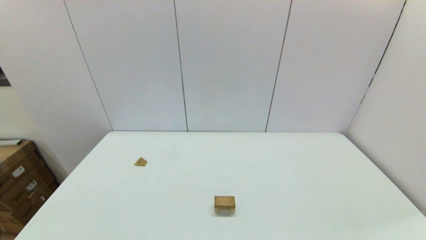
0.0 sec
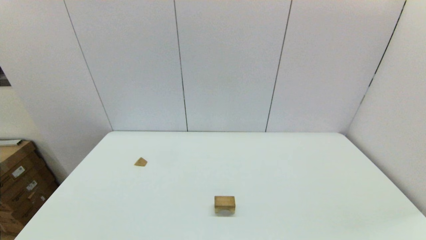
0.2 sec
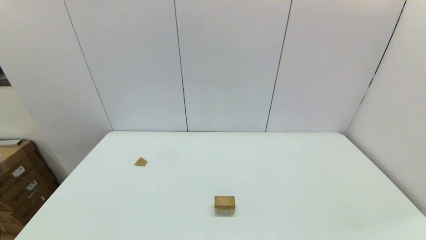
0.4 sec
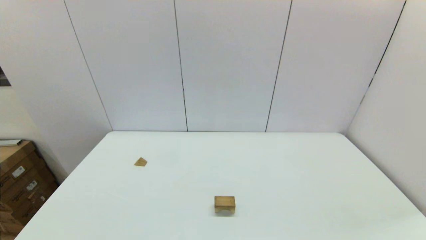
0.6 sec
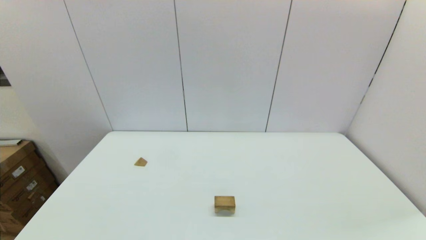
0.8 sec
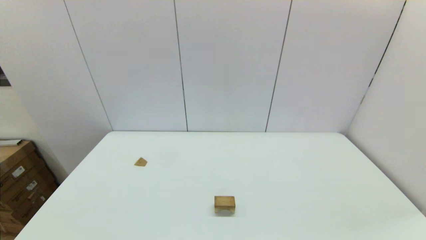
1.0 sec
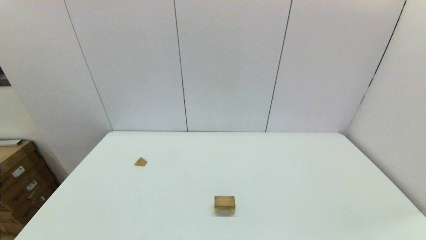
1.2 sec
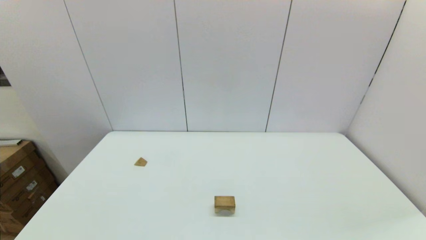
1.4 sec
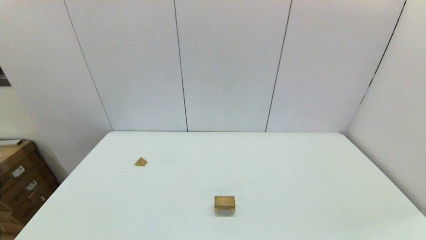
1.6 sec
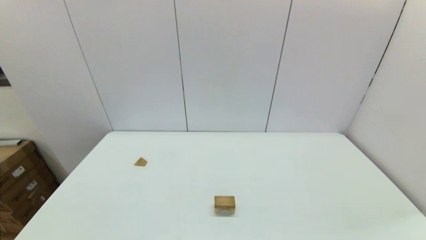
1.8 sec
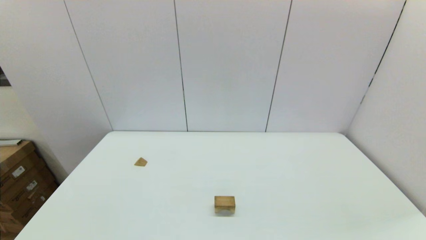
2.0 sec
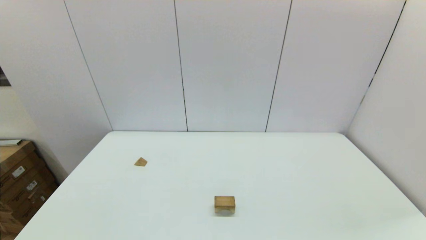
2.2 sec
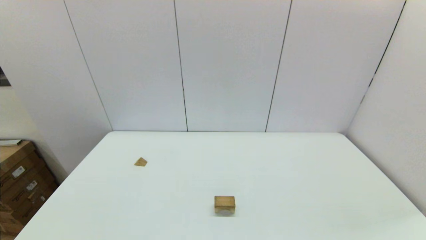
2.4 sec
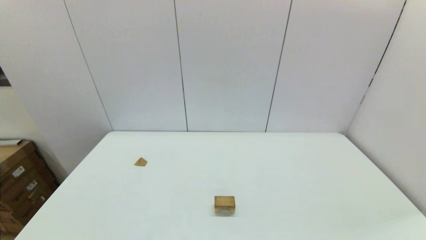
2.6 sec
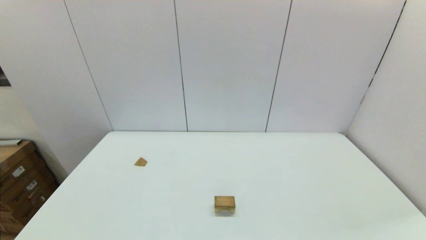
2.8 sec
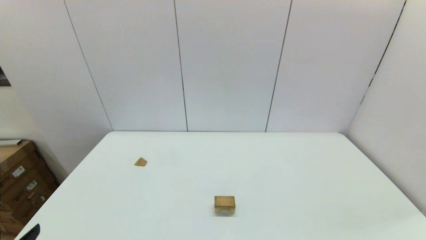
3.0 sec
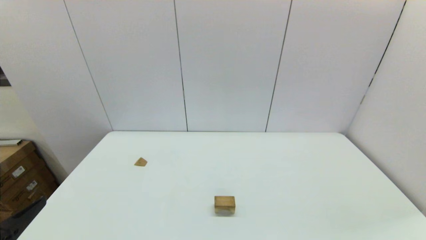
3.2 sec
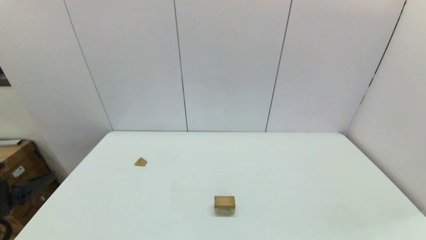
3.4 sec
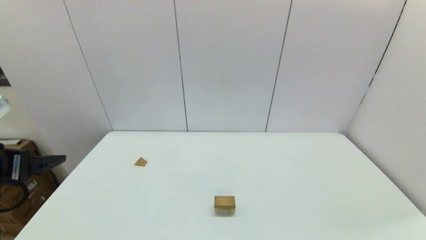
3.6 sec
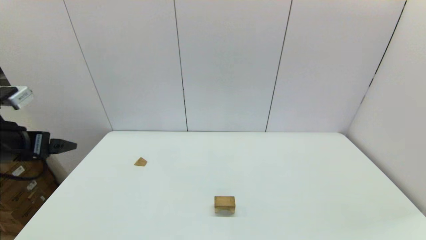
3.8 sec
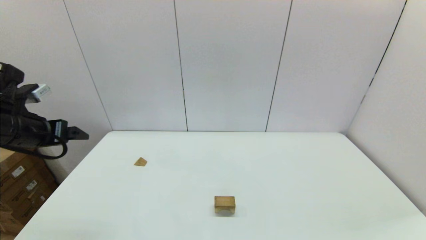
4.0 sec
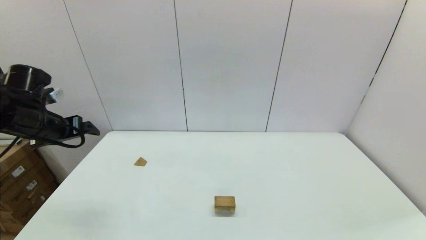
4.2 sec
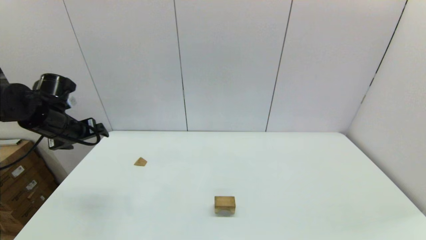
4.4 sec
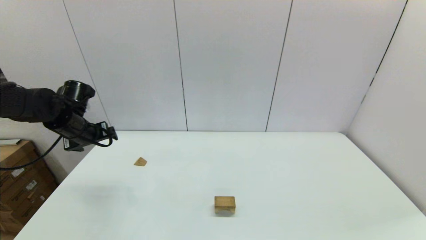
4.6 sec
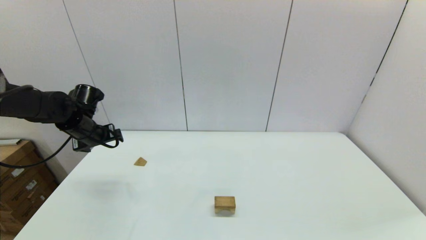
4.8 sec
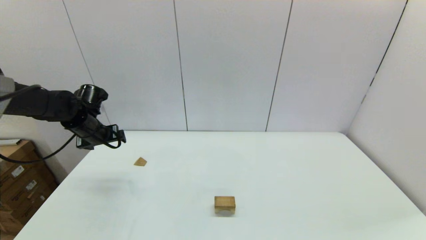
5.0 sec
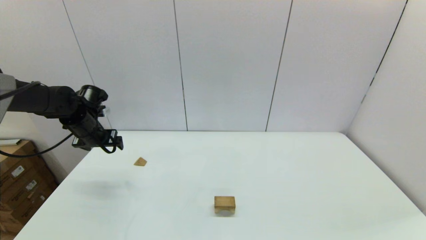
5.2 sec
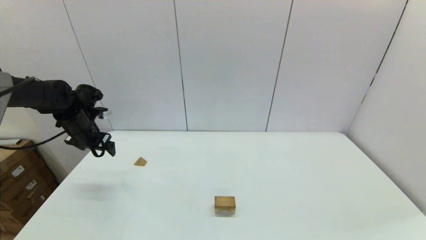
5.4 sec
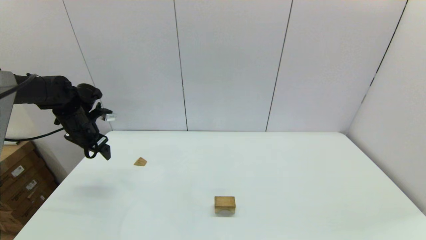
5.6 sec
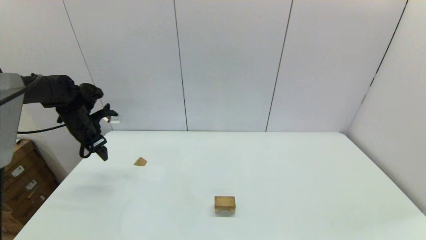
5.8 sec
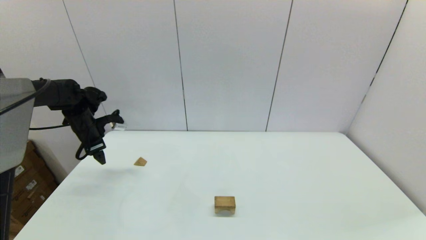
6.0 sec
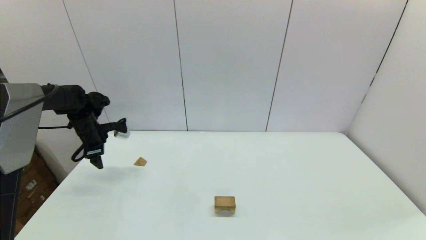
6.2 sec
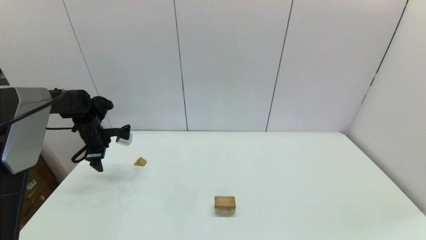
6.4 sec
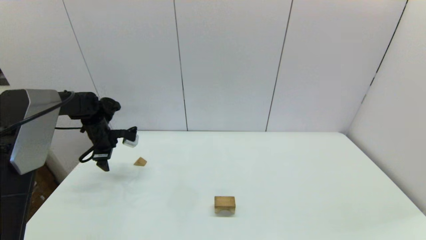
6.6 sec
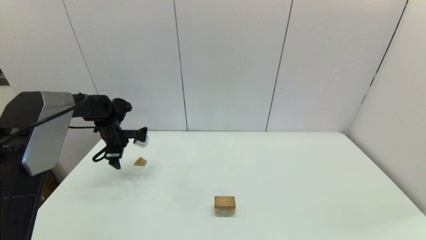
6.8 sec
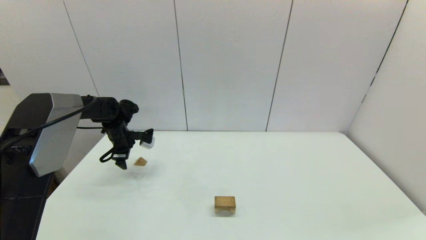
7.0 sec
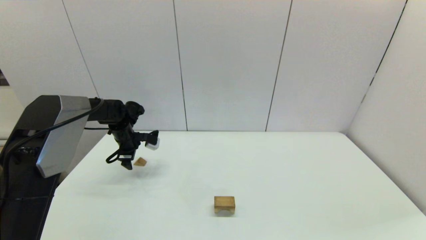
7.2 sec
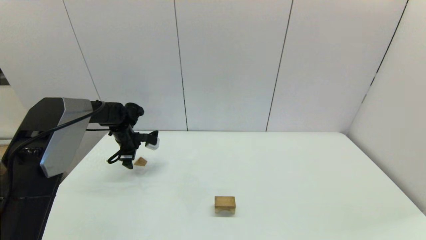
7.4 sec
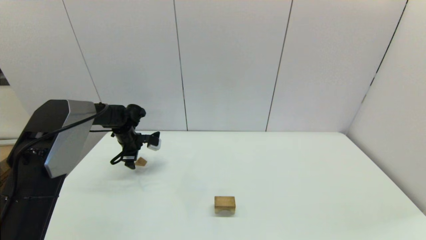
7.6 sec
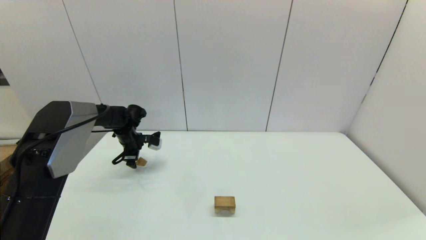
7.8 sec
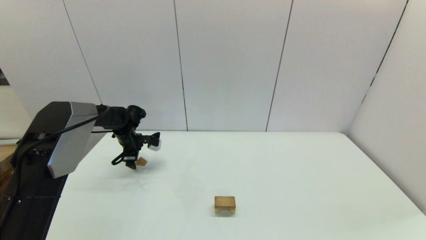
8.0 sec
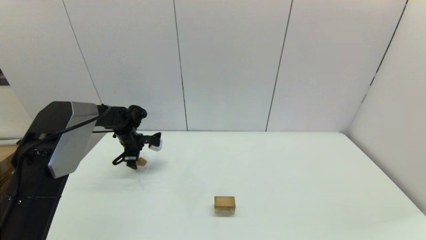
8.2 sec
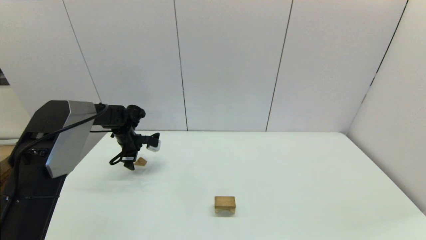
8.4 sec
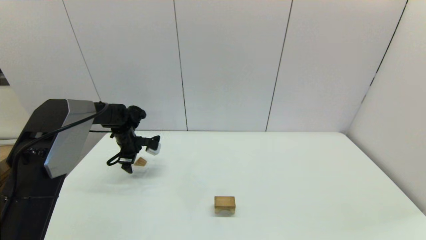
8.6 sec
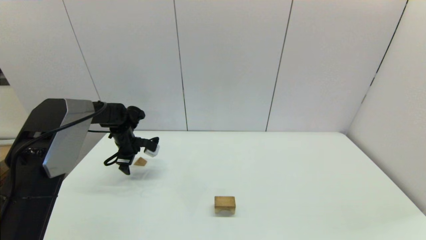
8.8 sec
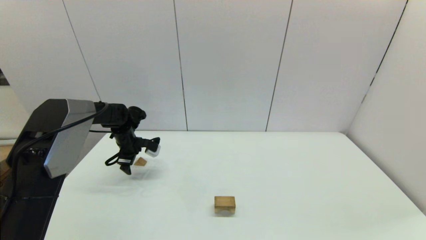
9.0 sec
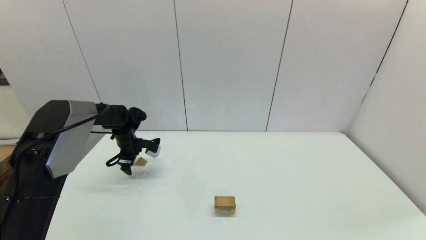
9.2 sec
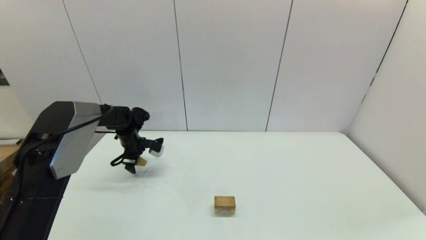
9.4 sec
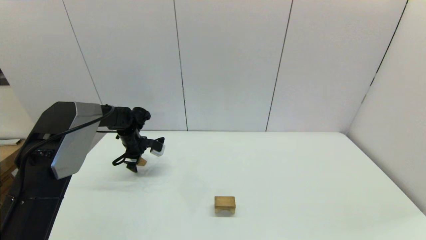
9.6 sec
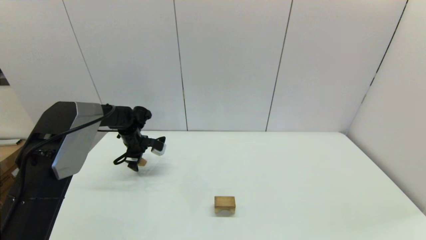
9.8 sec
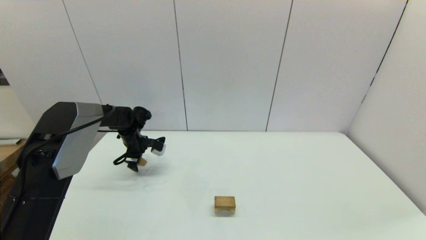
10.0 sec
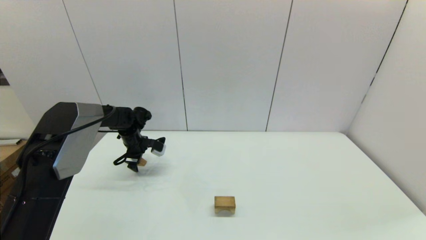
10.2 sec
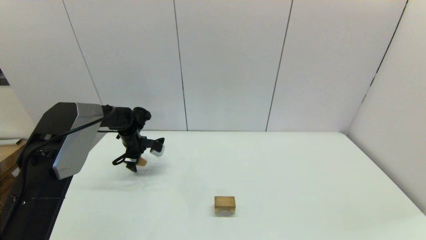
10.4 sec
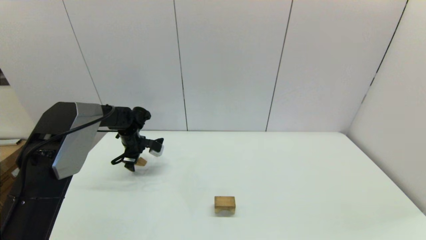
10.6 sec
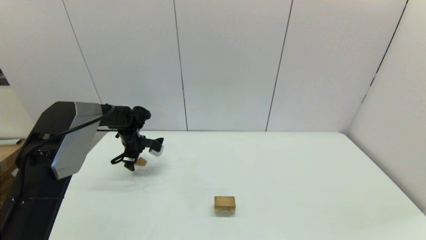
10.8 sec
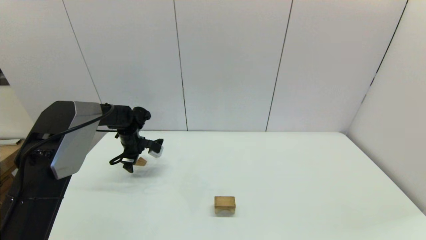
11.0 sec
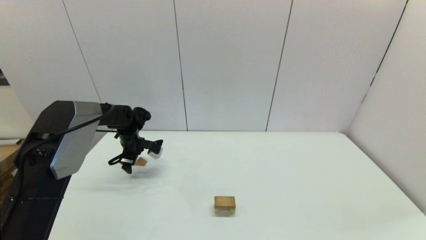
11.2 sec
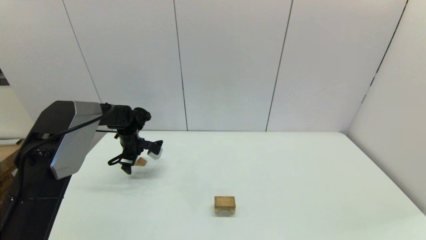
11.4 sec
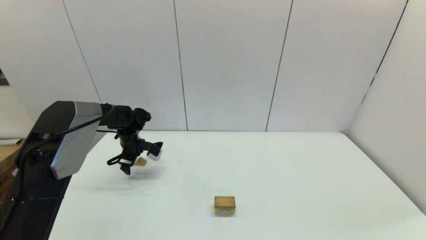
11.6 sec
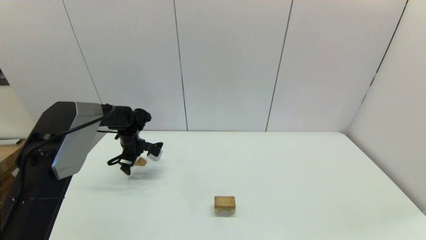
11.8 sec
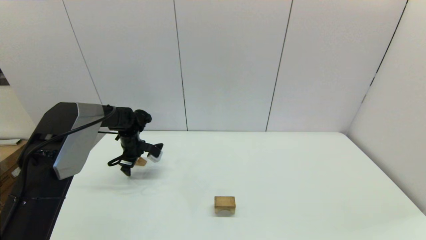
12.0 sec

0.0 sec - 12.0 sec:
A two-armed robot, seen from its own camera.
Task of the whole recording: place the arched building blocks in the center of the table, set up the rectangular building blocks, and then set up the triangular building blocks.
0.0 sec - 1.6 sec: Both grippers stay about where they are.
3.0 sec - 4.4 sec: The left gripper is displaced forward by about 30 cm.
4.4 sec - 6.0 sec: The left gripper shifts some 10 cm forward.
6.0 sec - 7.6 sec: The left gripper heads downward and to the right, covering roughly 10 cm.
7.6 sec - 12.0 sec: The grippers move only a little.

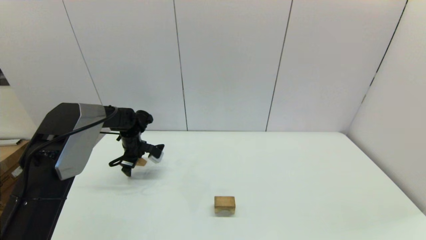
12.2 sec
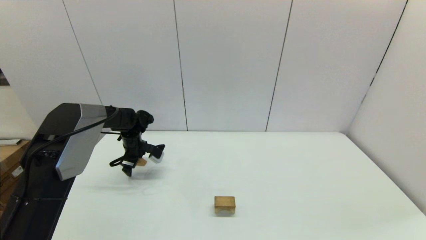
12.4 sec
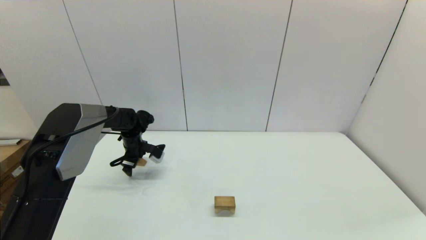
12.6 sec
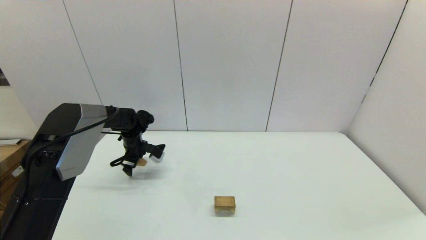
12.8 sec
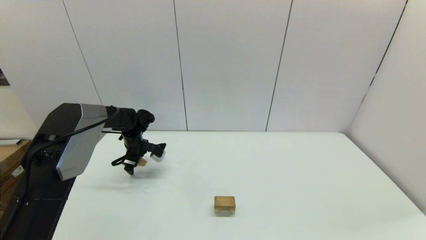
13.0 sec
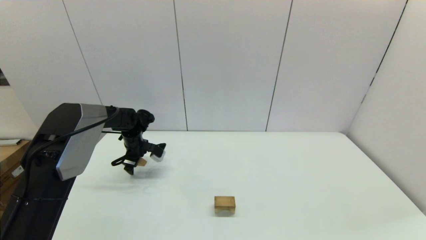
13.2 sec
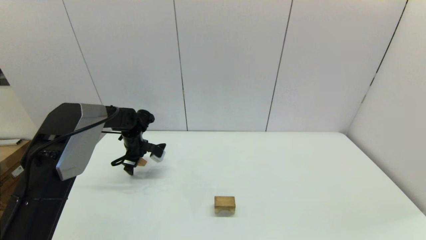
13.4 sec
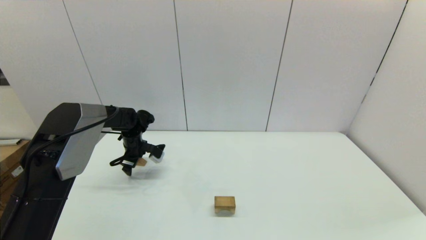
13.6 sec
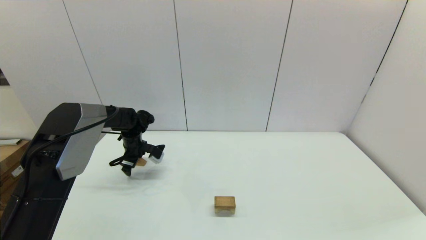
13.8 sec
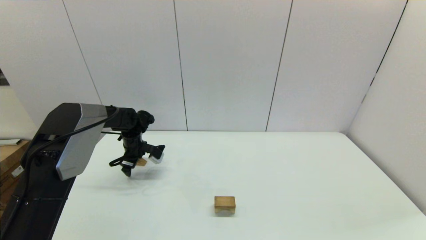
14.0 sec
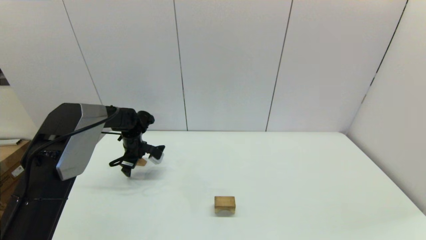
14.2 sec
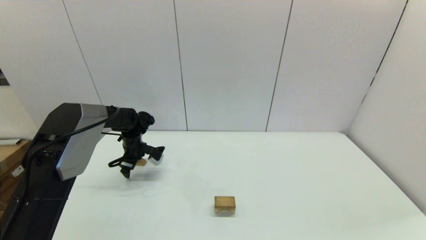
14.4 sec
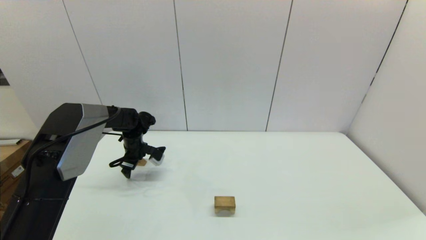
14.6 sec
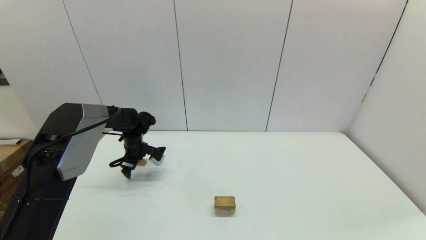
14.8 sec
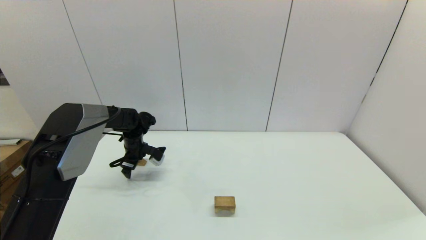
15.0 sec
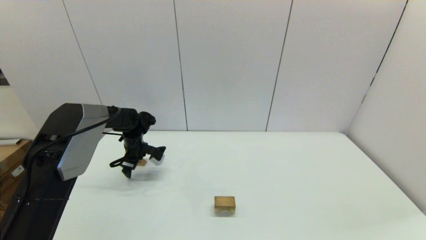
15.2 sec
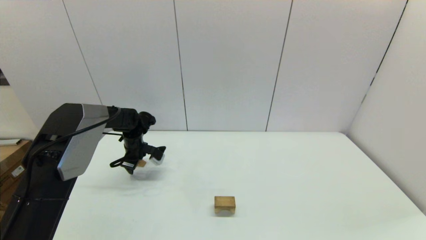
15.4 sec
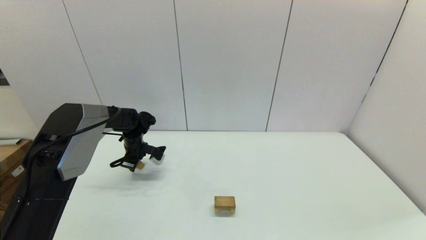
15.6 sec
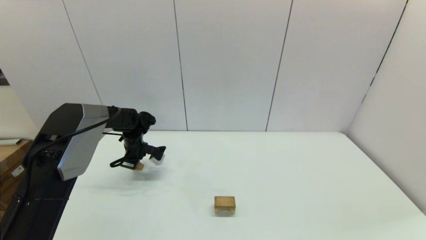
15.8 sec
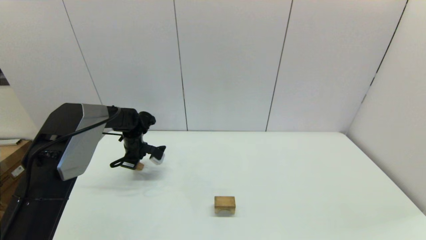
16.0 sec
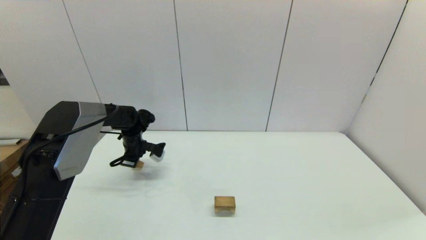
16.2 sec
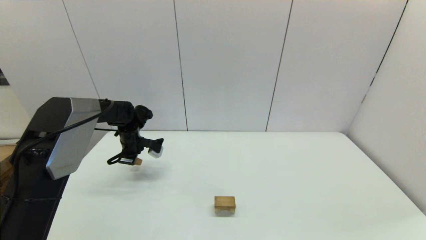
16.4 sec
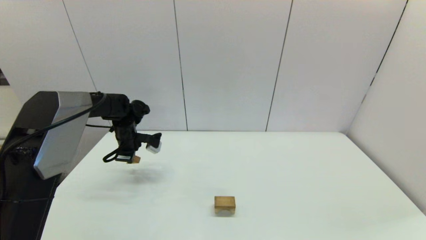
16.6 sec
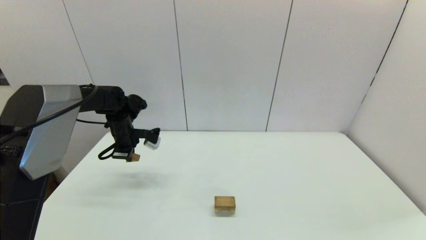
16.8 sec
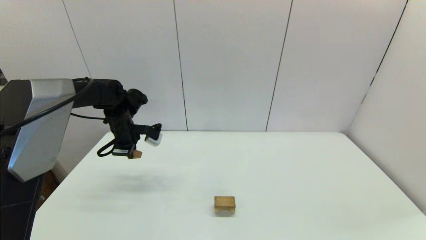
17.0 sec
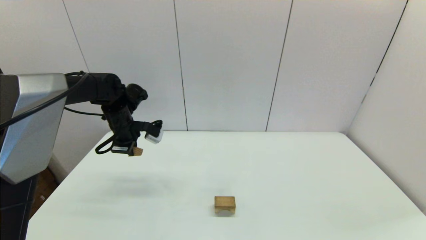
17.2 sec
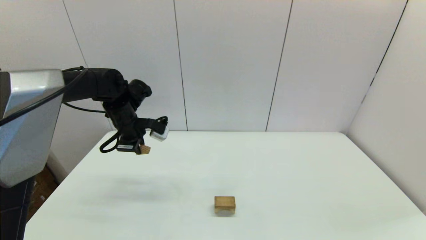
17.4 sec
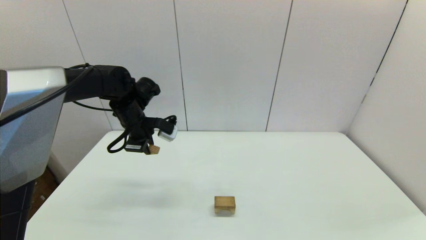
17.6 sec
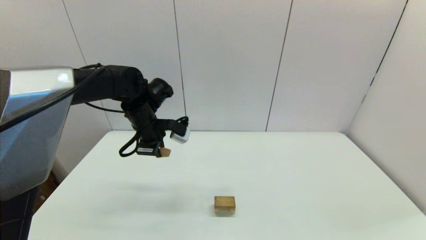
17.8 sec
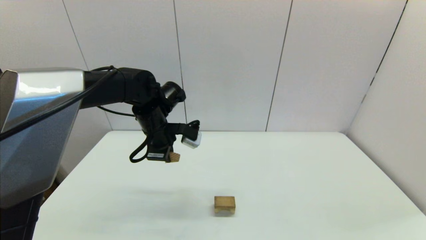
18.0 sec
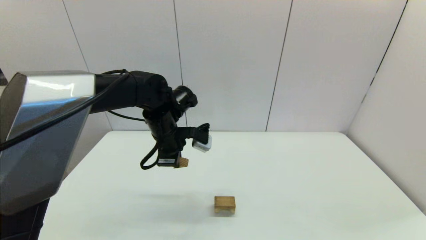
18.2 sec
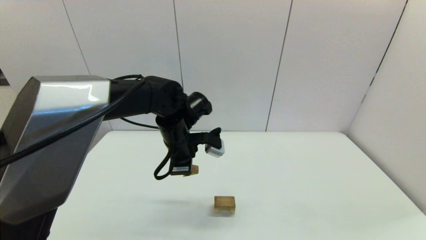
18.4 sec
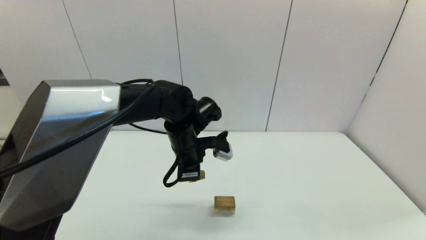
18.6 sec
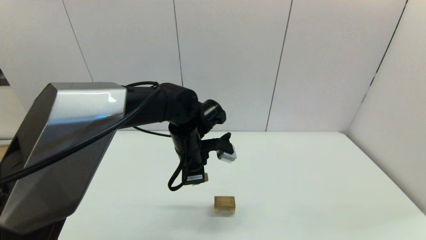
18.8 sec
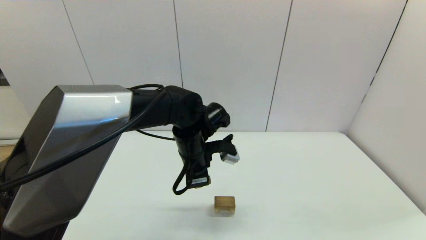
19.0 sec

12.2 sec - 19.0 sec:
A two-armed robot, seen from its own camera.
Task of the whole recording: place the arched building blocks in the center of the table, set up the rectangular building blocks, and then set up the triangular building blocks.
12.2 sec - 15.0 sec: Neither gripper changes place.
15.0 sec - 16.2 sec: The left gripper closes up.
16.2 sec - 17.6 sec: The left gripper goes about 15 cm upward, backward and to the right.
17.6 sec - 19.0 sec: The left gripper goes roughly 15 cm to the right and backward.
